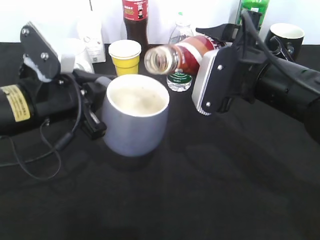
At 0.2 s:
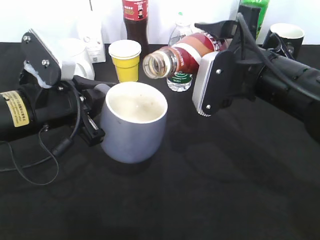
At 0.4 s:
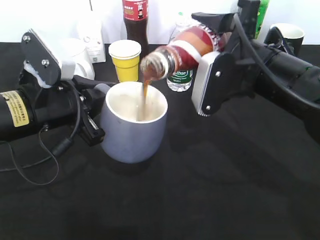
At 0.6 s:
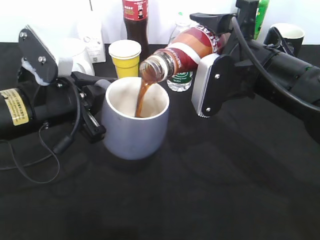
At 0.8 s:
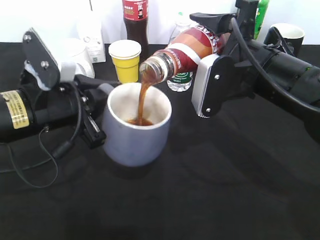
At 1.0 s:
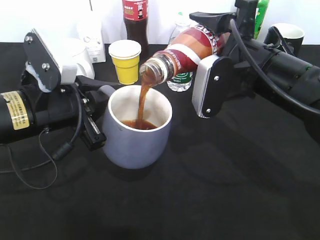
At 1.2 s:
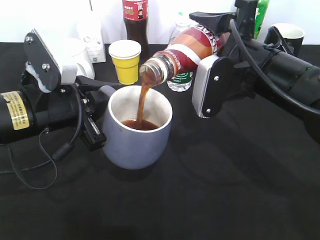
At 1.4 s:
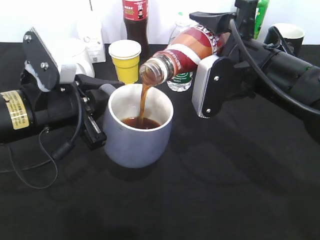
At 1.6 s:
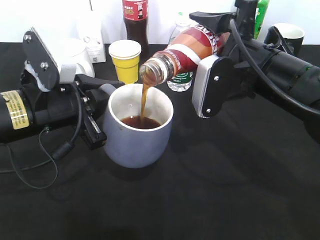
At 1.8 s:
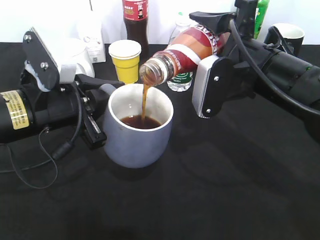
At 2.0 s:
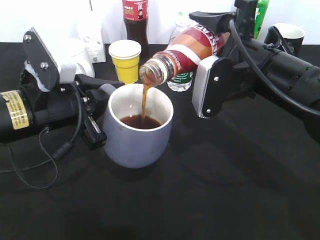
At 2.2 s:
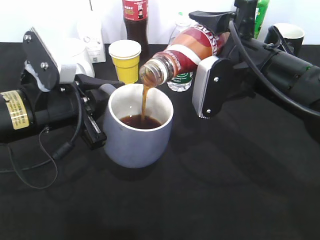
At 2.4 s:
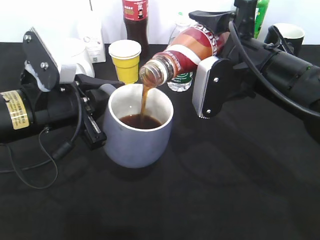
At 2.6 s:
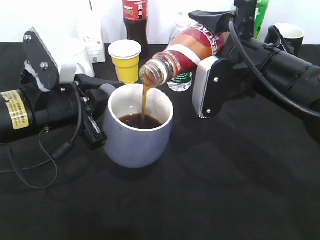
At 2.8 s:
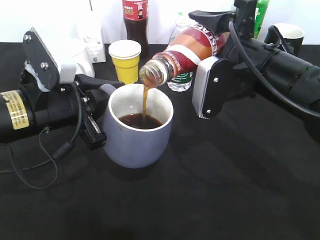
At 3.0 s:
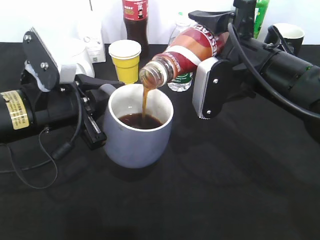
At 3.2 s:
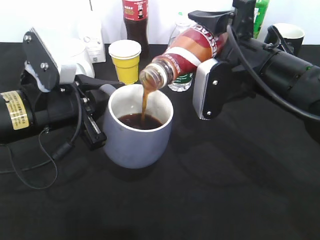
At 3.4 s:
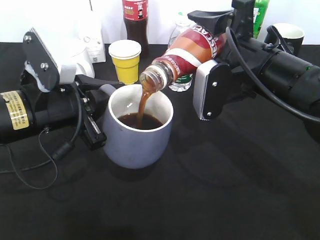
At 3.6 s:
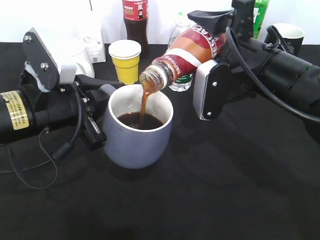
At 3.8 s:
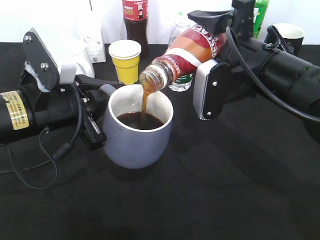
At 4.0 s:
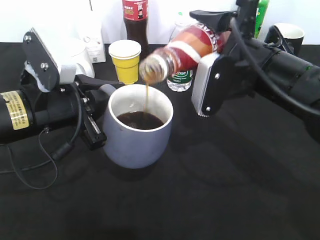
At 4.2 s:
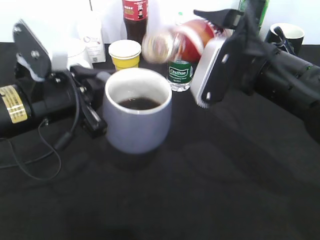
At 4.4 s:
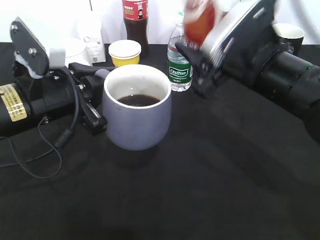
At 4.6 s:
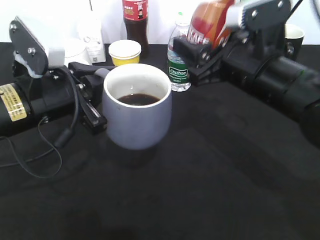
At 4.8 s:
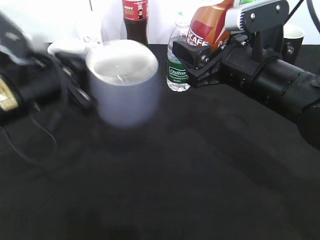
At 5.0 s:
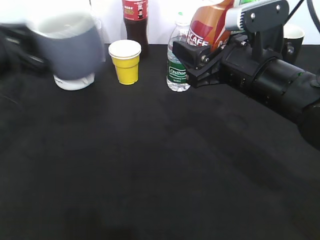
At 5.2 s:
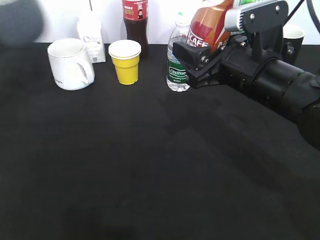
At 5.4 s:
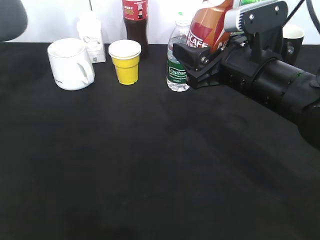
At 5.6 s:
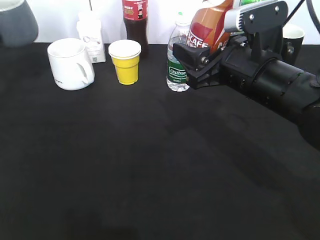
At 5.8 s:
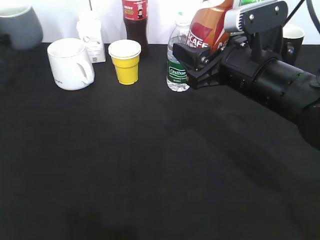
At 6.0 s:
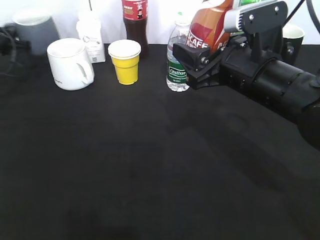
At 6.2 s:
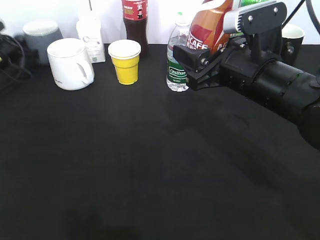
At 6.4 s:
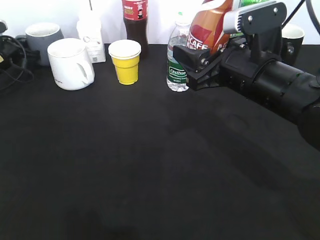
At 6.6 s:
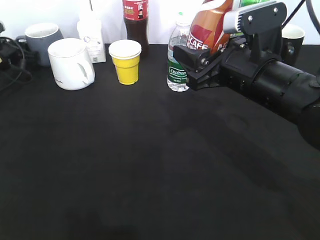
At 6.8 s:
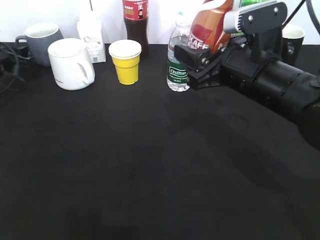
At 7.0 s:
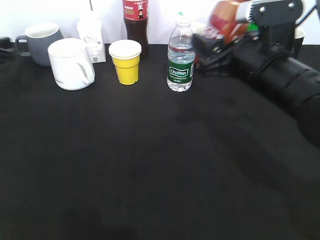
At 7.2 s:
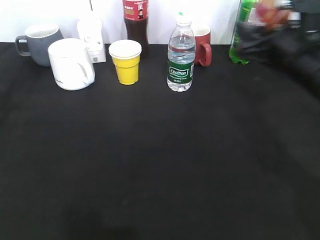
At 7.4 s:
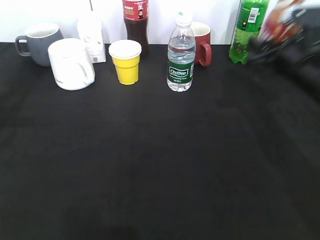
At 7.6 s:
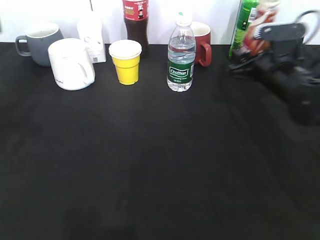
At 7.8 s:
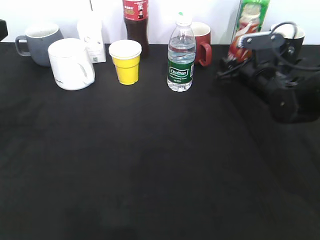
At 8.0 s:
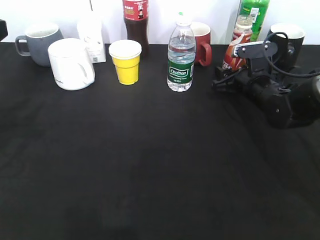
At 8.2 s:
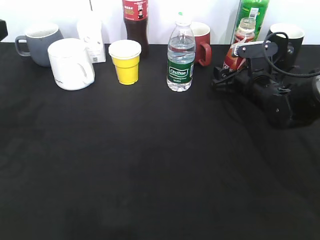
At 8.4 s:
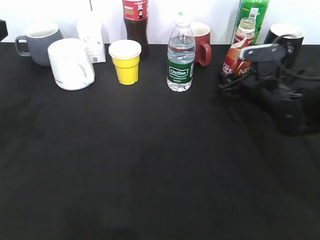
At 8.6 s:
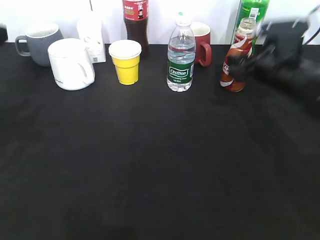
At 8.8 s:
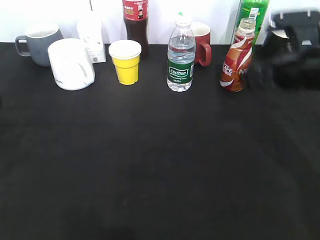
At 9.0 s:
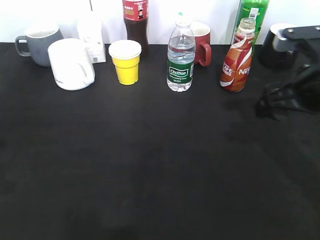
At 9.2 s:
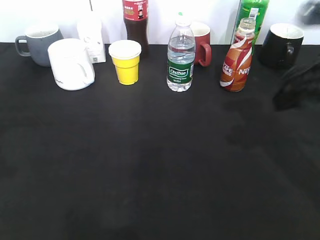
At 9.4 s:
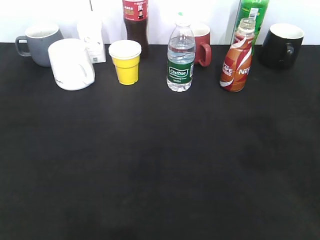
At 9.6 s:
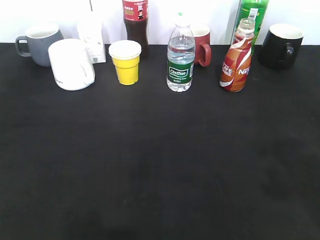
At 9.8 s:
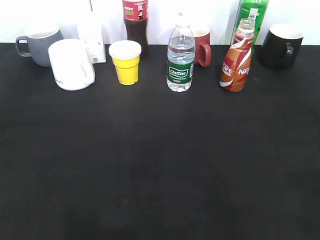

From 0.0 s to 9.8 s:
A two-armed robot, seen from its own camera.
Step, from 0.0 s to 4.2 s: Pour the coffee from bottle to cup with right gripper.
Step, from 4.4 s to 7.0 s: Place the grey cup on the table with left gripper.
Step, from 7.2 s to 8.8 s: Place the coffee bottle on the table with right gripper.
From 0.0 s to 1.4 s: The grippers move only a little.
From 1.4 s to 2.8 s: The two grippers keep their place.
From 4.2 s to 5.6 s: The left gripper is displaced to the left and forward by approximately 30 cm.
From 5.6 s to 7.0 s: The left gripper moves about 10 cm forward and comes back, and opens its fingers.
From 7.0 s to 8.4 s: The right gripper heads downward, forward and to the right, covering about 15 cm, and opens up. The left gripper travels backward, upward and to the right by some 20 cm.
From 8.4 s to 9.8 s: The left gripper heads backward, covering roughly 20 cm. The right gripper goes roughly 40 cm backward and upward.

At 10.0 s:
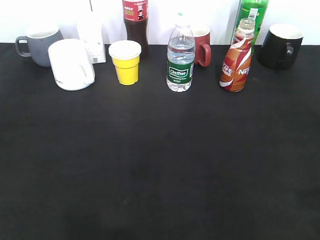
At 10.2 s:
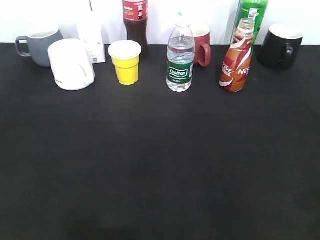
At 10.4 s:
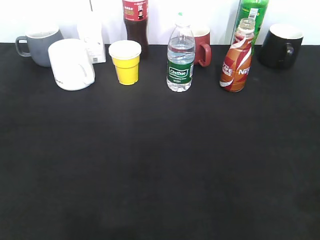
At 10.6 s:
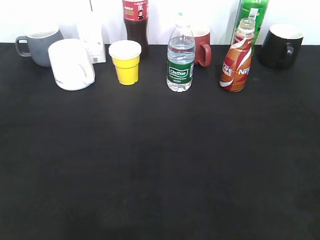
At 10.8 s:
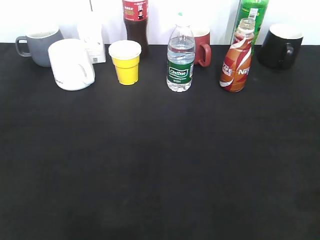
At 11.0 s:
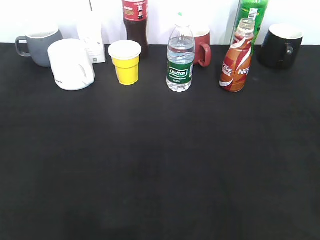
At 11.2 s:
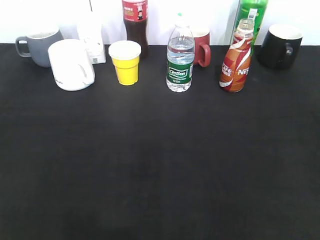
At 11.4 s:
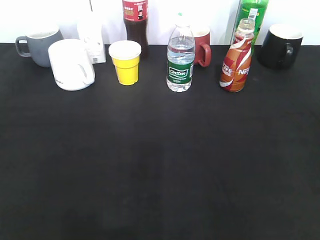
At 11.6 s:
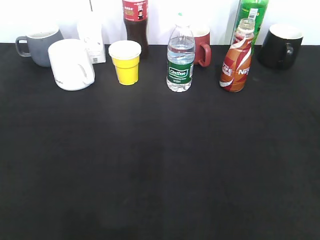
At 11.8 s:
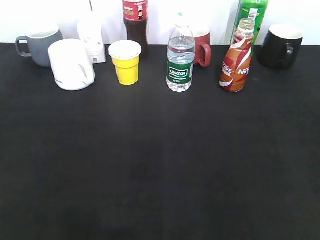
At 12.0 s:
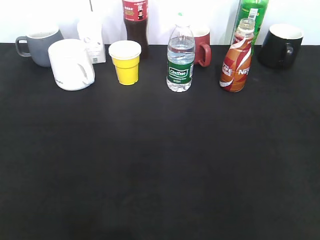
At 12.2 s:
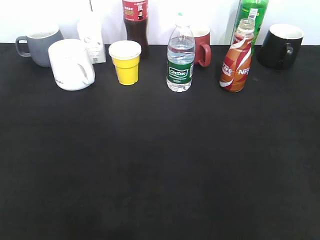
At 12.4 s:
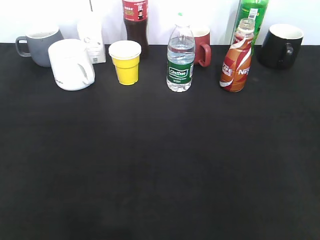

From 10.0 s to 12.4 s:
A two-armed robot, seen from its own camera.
From 10.0 s to 11.2 s: The right gripper is displaced backward by roughly 5 cm.
From 11.2 s to 12.4 s: Both grippers stay about where they are.
